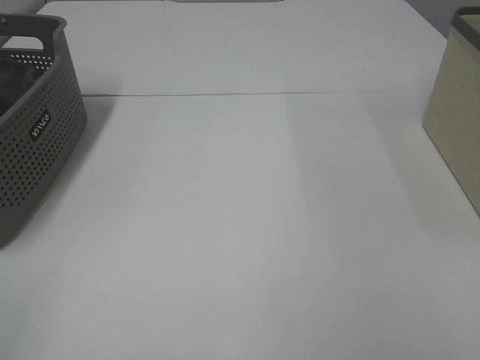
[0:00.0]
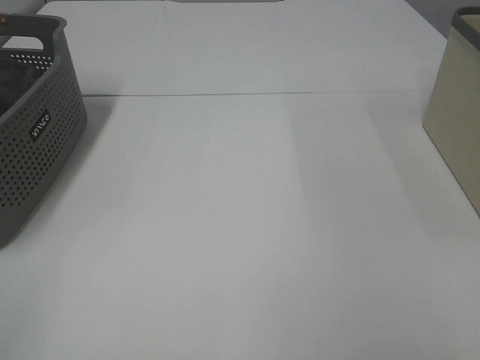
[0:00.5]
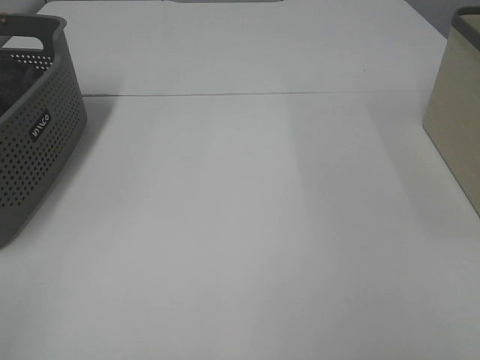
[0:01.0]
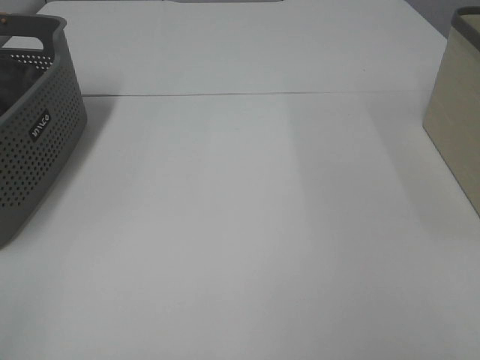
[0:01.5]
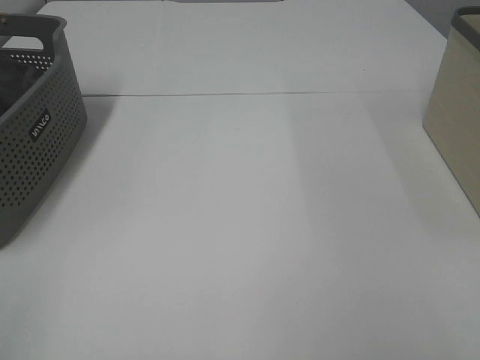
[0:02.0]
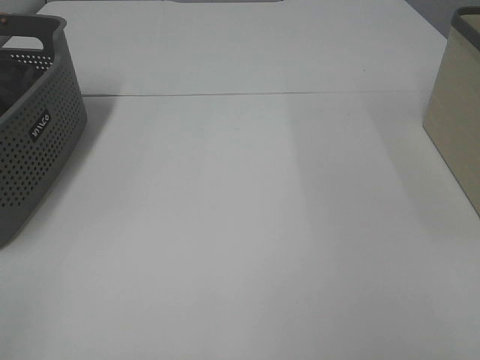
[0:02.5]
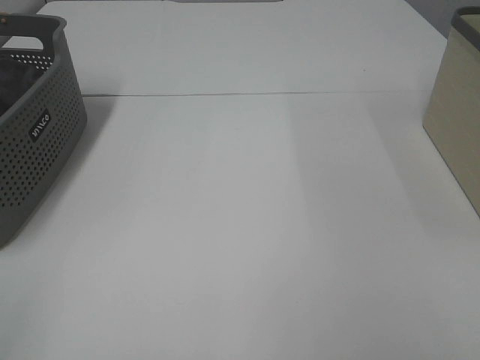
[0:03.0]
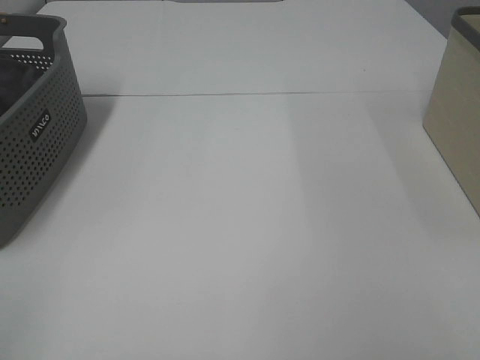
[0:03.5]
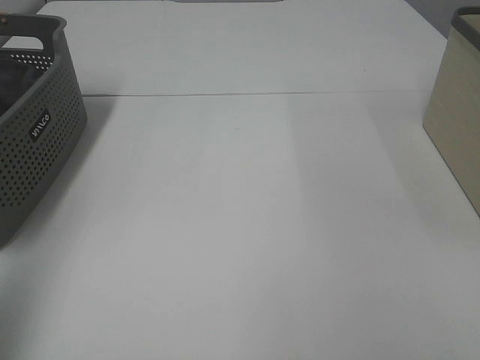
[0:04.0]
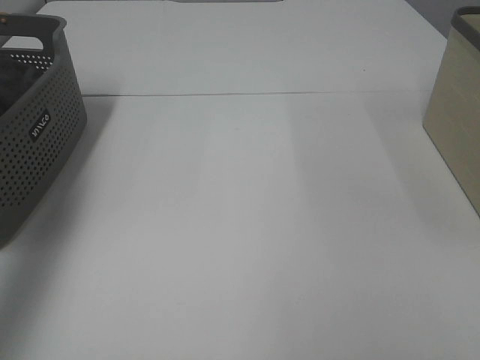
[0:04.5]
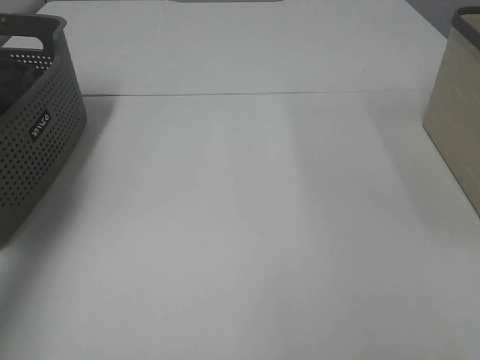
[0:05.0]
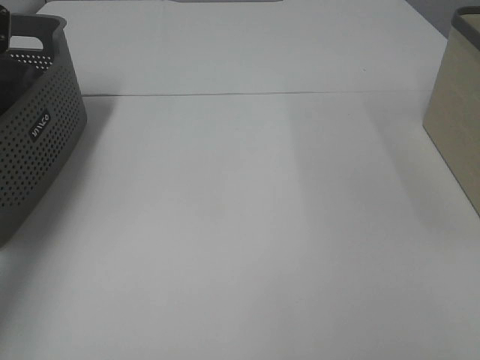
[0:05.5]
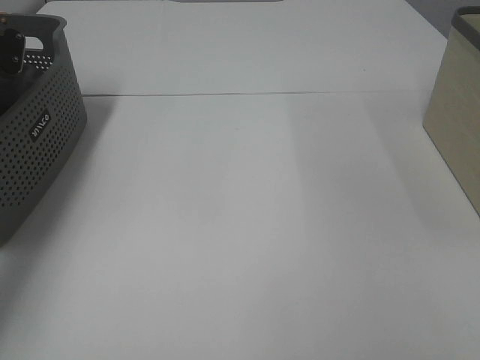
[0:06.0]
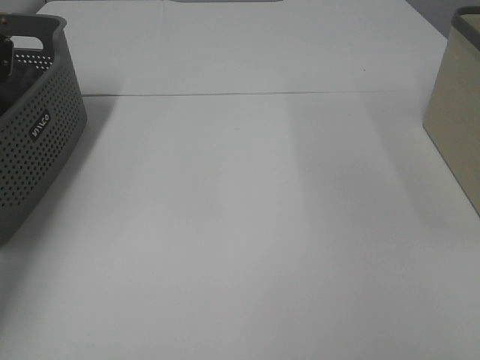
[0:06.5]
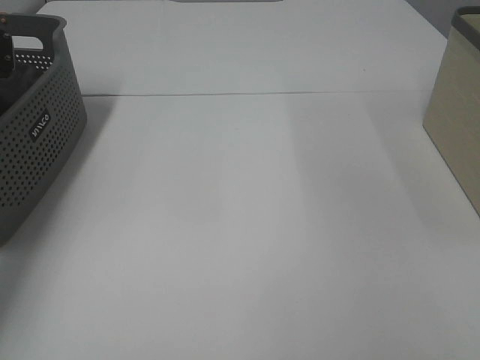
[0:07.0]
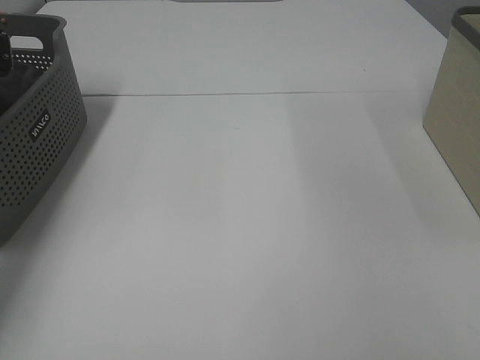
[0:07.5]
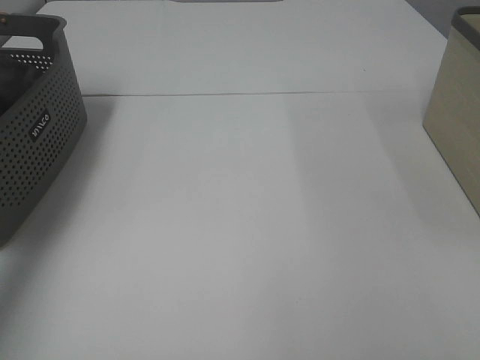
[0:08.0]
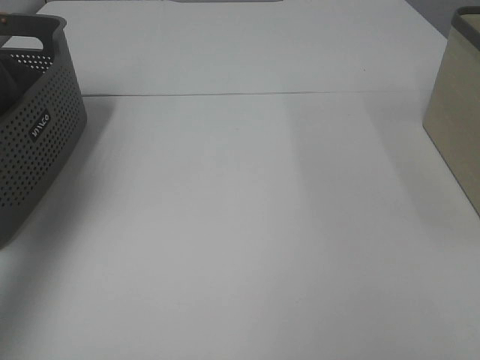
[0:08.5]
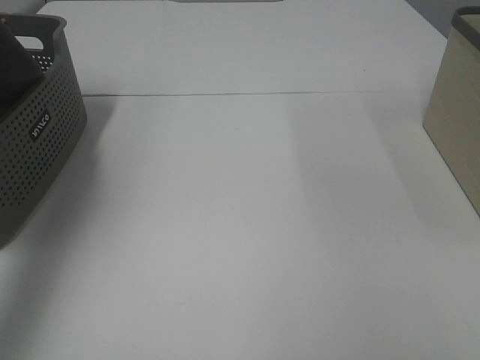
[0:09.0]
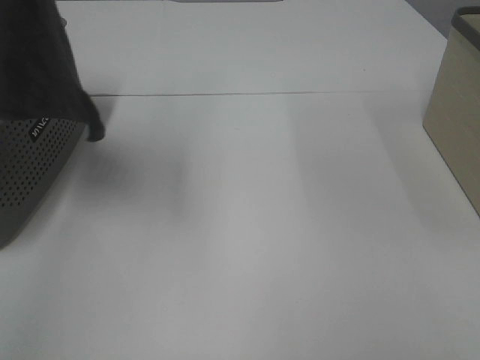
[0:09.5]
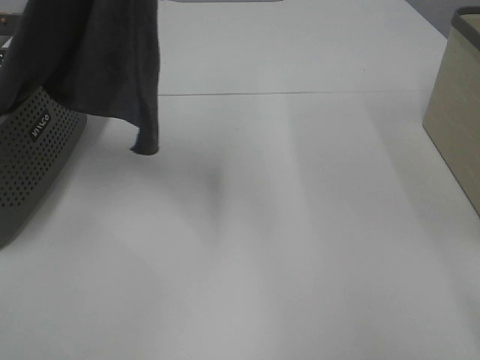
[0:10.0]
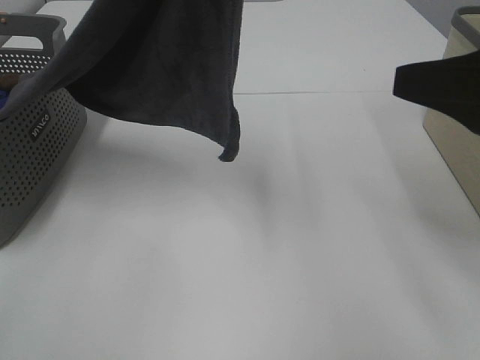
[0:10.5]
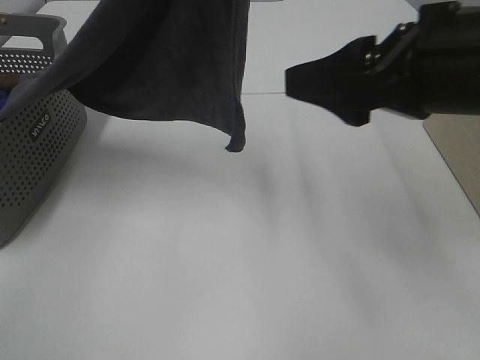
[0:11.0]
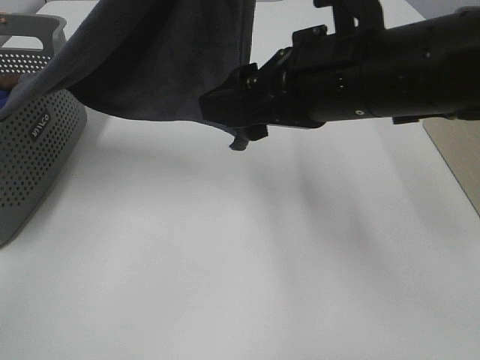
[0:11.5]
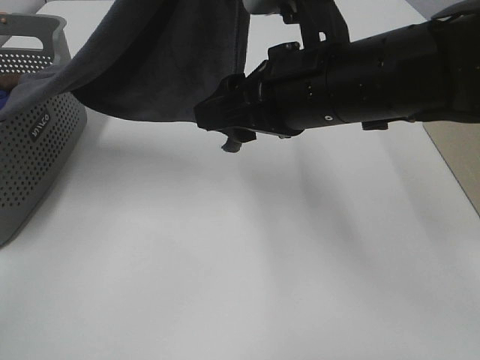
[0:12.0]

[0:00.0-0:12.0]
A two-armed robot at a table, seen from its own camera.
Task of the whole recording: Remove the towel and place it.
0:00.0 to 0:02.0: Neither gripper changes place.
0:02.0 to 0:04.0: The left gripper heads forward and upward, covering about 15 cm.
0:04.0 to 0:06.0: The left gripper moves forward and downward, about 40 cm.
0:08.0 to 0:10.0: The right gripper shifts approximately 5 cm forward. The left gripper moves to the right, upward and backward, about 30 cm.
0:10.0 to 0:12.0: The right gripper goes roughly 25 cm forward and to the left, while the left gripper is displaced to the right by some 5 cm.

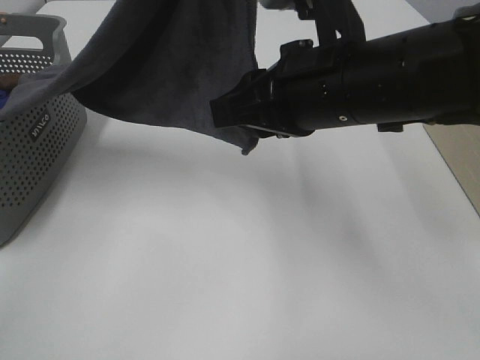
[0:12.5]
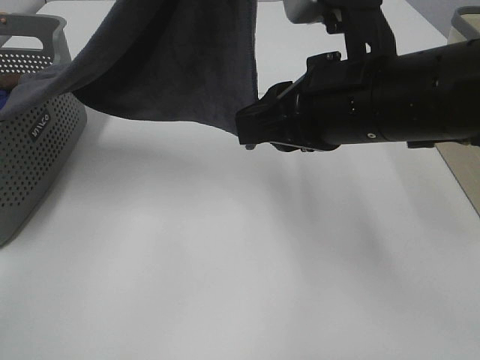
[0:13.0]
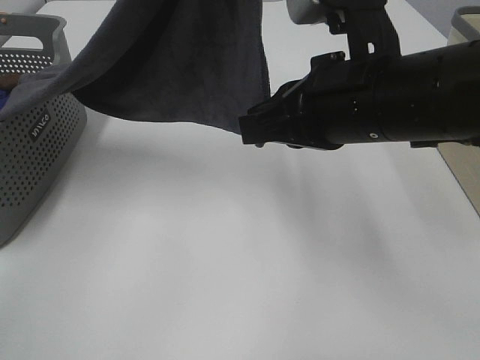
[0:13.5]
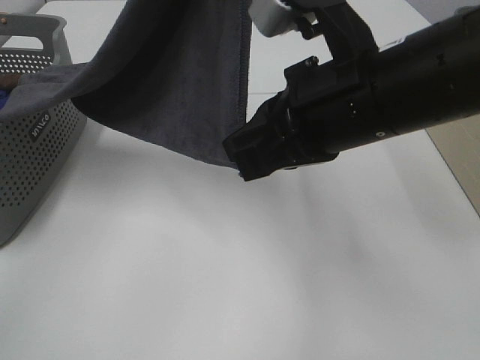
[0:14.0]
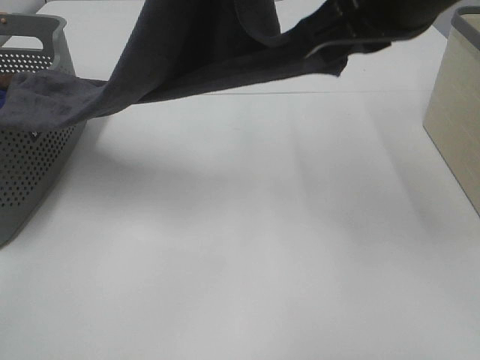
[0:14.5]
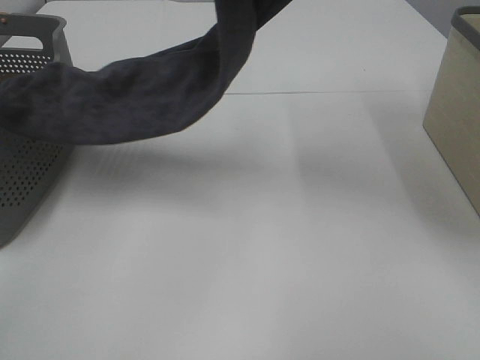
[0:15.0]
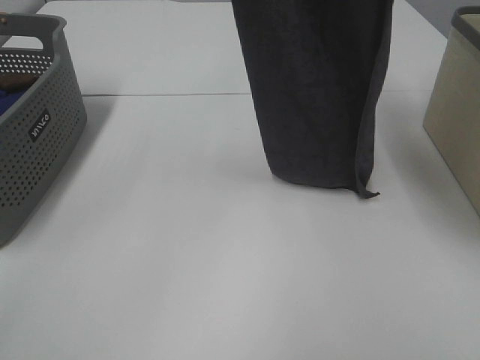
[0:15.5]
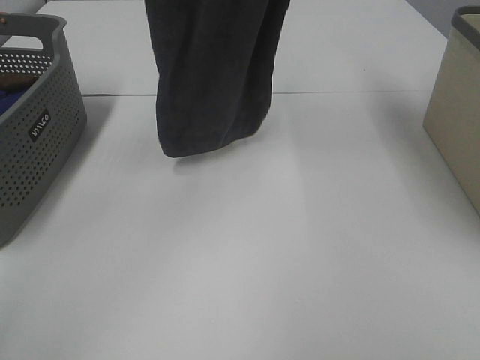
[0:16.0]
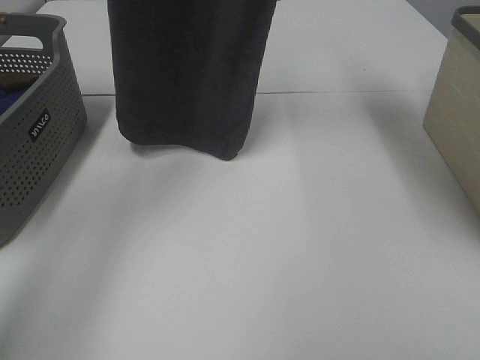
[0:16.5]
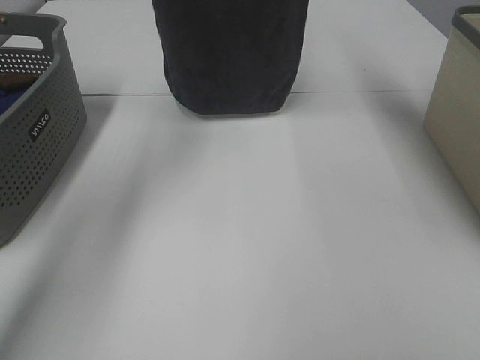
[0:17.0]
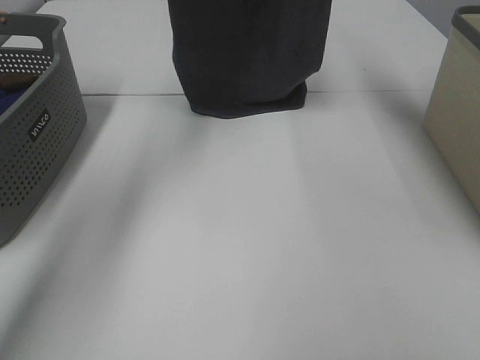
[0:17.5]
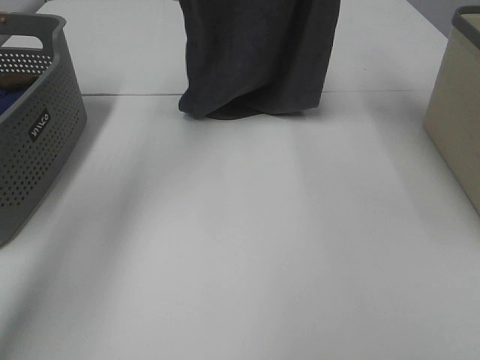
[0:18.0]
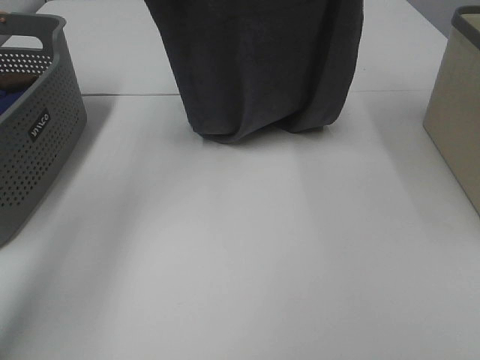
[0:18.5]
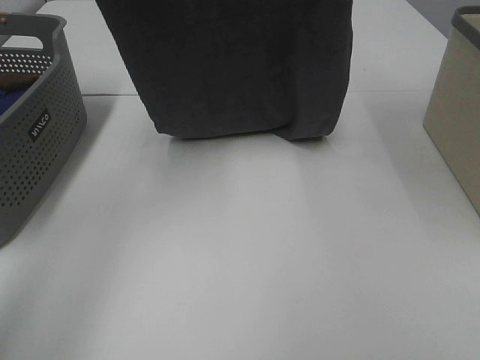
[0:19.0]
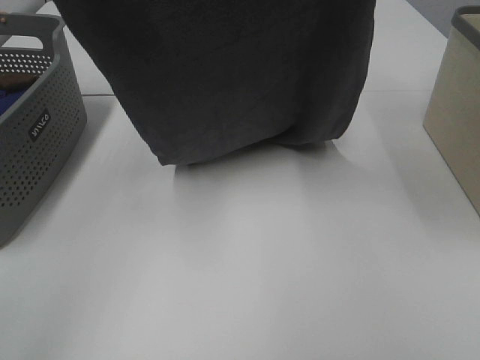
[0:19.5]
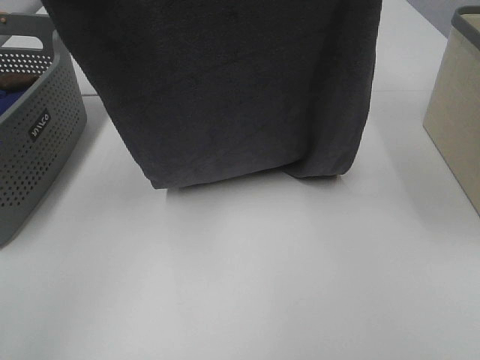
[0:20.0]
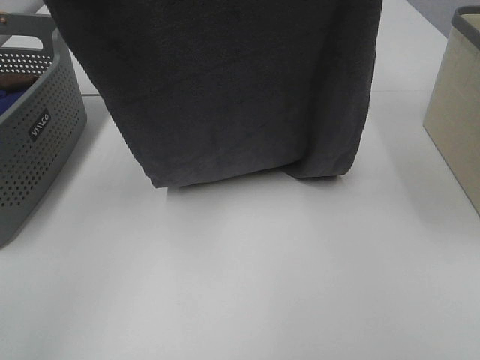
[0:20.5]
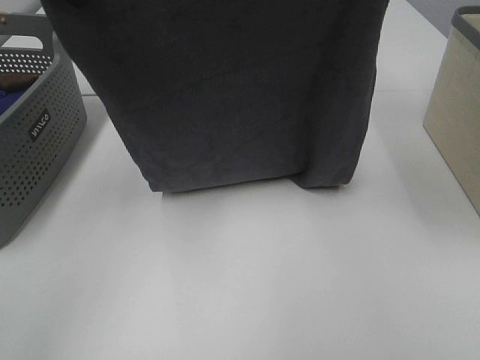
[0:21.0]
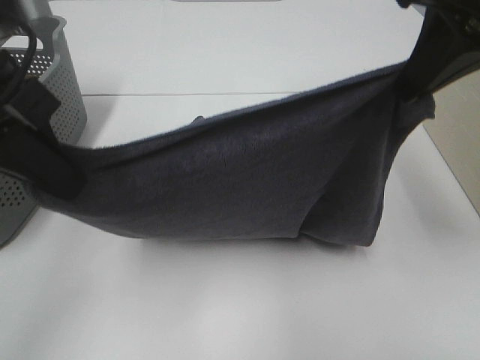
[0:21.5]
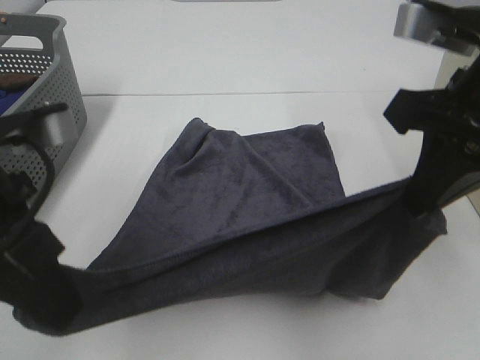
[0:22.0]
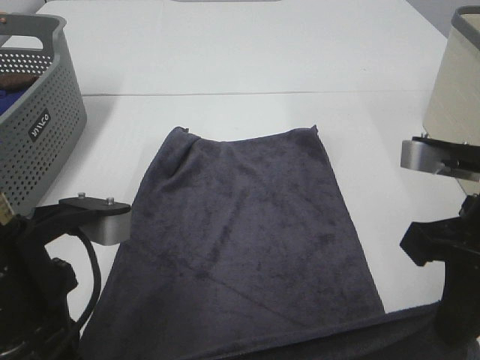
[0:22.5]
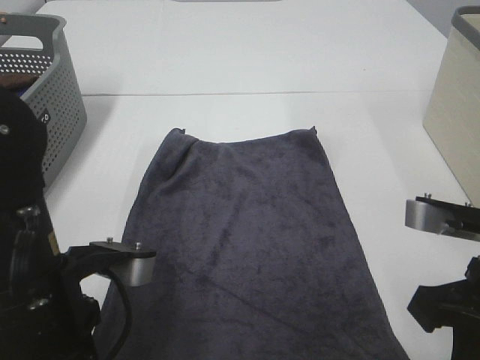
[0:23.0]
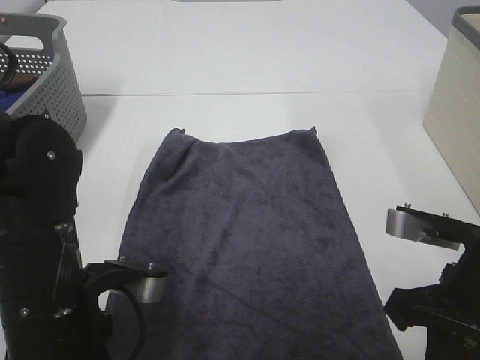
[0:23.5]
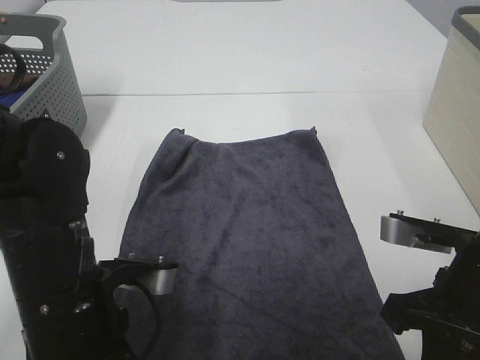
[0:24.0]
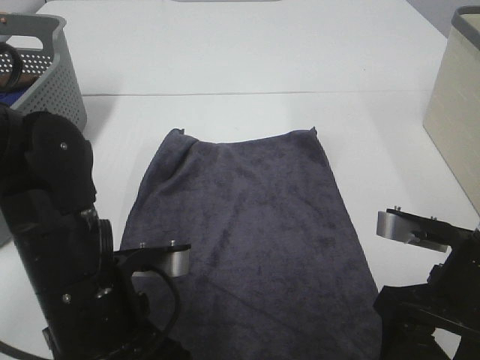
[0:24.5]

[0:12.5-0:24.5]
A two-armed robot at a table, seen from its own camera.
Task of the whole recording: Remove the towel and place it.
Step, 0:14.5 to 0:19.5: Left hand: spread the grey towel flat on the table.
Step, 0:14.5 to 0:19.5: Right hand: spread the grey towel flat on the table.
0:12.5 to 0:14.5: The right gripper heads upward, covering roughly 10 cm.
0:14.5 to 0:16.5: The right gripper goes approximately 20 cm forward and upward; the left gripper is displaced forward and to the left by about 15 cm.
0:16.5 to 0:18.5: The right gripper shifts about 5 cm to the right; the left gripper is displaced downward by some 10 cm.
0:18.5 to 0:20.5: The right gripper heads backward, covering roughly 10 cm, while the left gripper goes roughly 15 cm backward.
0:20.5 to 0:22.5: Both grippers move downward and backward, some 25 cm.
0:22.5 to 0:24.5: The grippers both shift downward by roughly 5 cm. The right gripper opens. Meanwhile the left gripper opens.

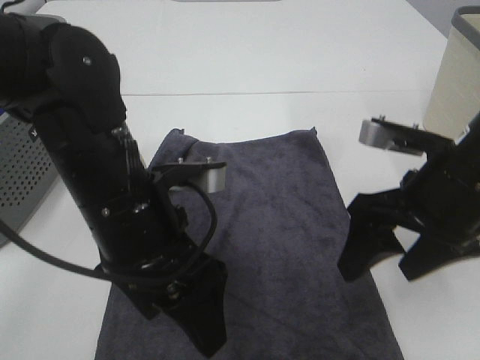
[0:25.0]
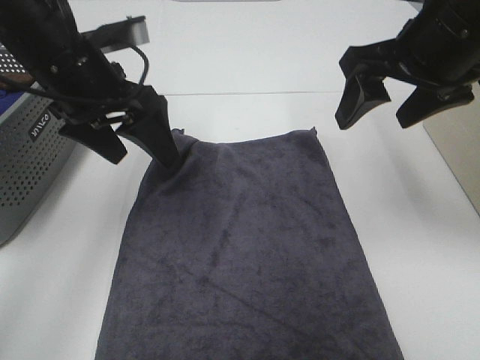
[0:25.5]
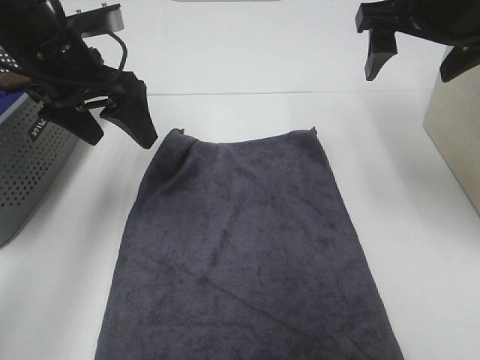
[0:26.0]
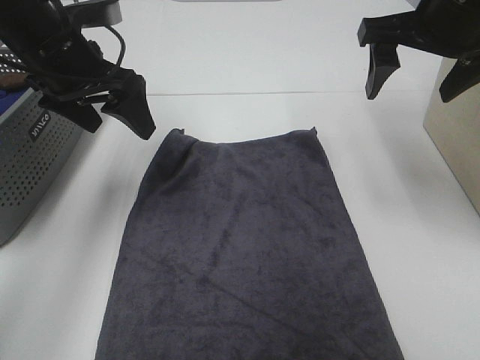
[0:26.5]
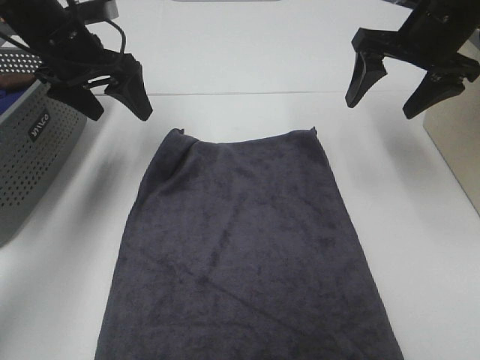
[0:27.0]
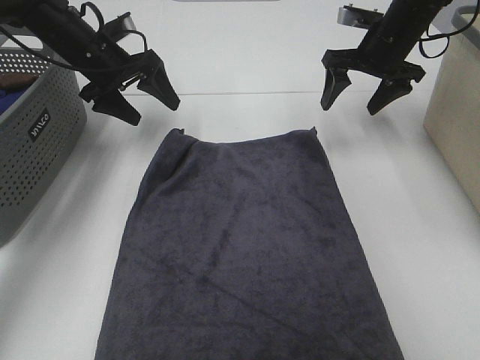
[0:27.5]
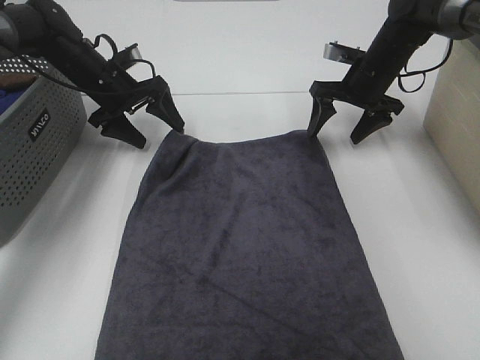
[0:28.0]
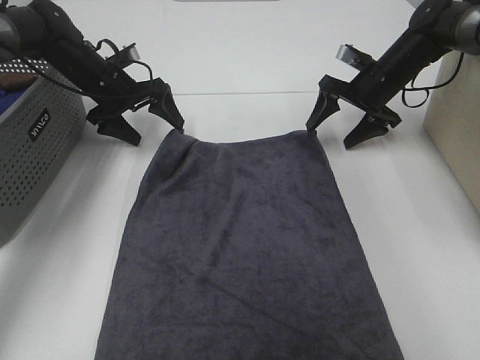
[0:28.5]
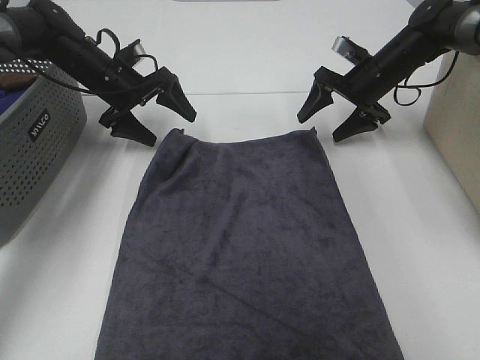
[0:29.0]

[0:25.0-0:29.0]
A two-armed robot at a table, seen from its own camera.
Task of the whole recording: Remove the towel and place it.
0:25.0 to 0:27.0: The right gripper moves forward, approximately 20 cm; the left gripper moves forward and to the left, some 25 cm.
0:27.0 to 0:29.0: Both grippers travel together downward and forward, some 15 cm.
